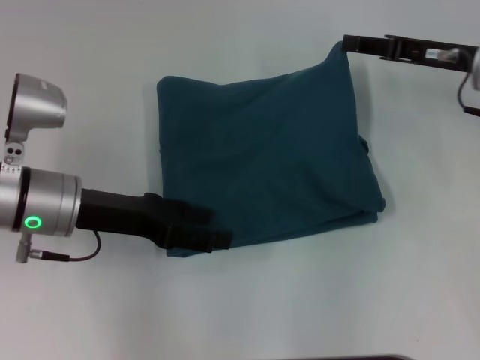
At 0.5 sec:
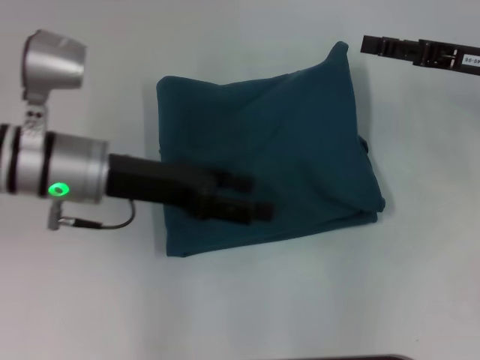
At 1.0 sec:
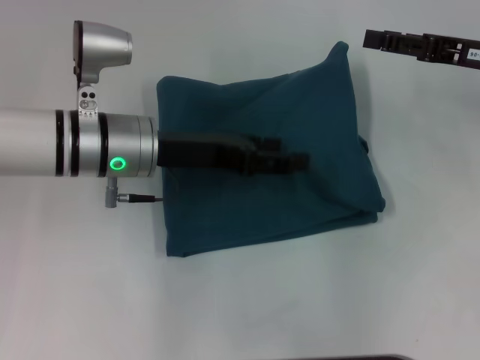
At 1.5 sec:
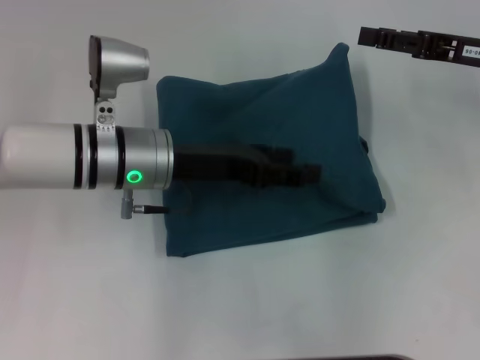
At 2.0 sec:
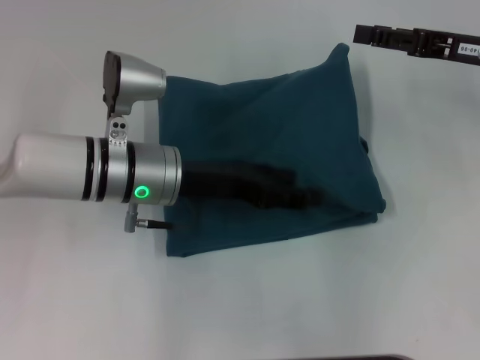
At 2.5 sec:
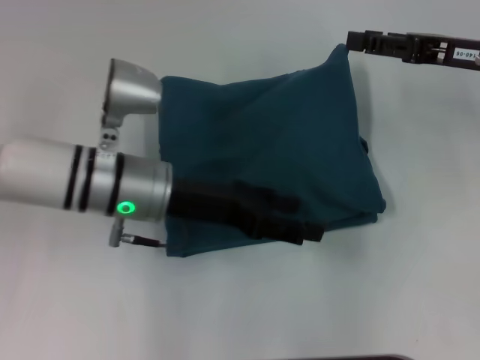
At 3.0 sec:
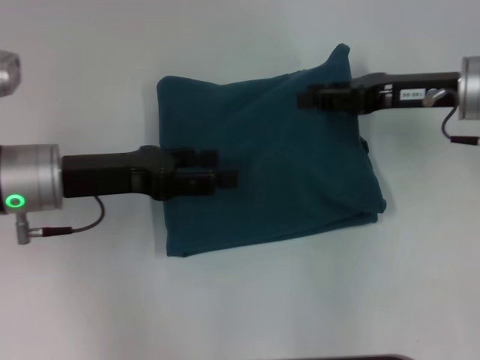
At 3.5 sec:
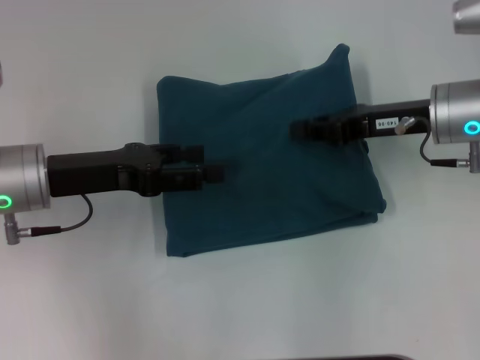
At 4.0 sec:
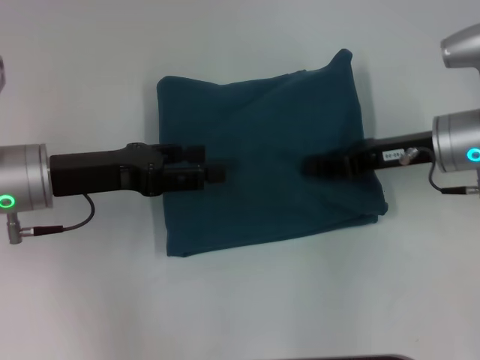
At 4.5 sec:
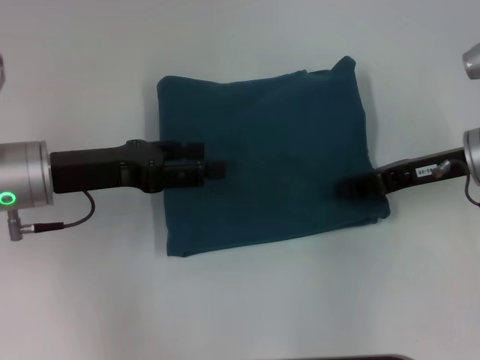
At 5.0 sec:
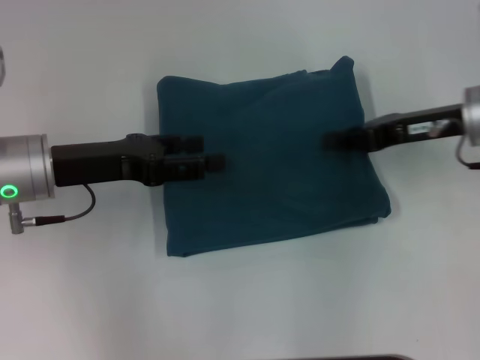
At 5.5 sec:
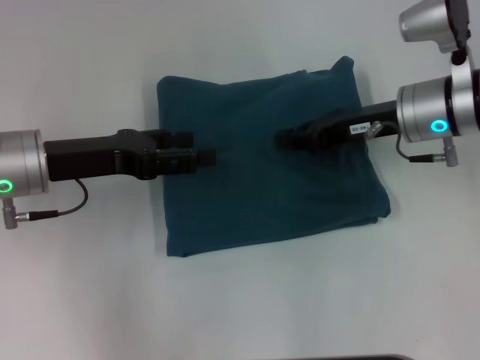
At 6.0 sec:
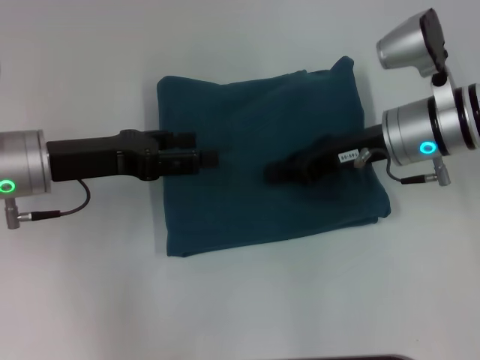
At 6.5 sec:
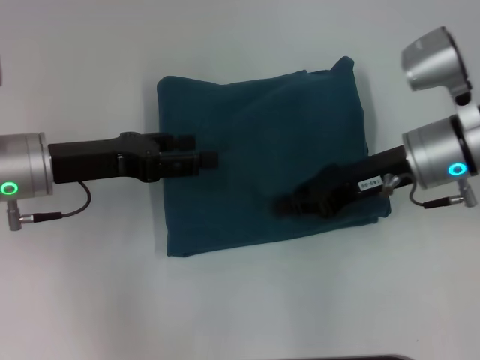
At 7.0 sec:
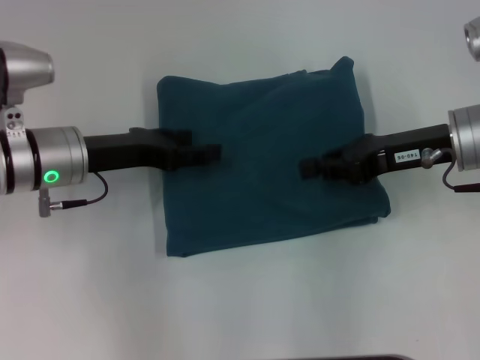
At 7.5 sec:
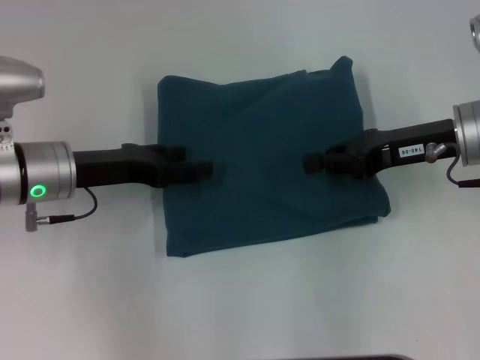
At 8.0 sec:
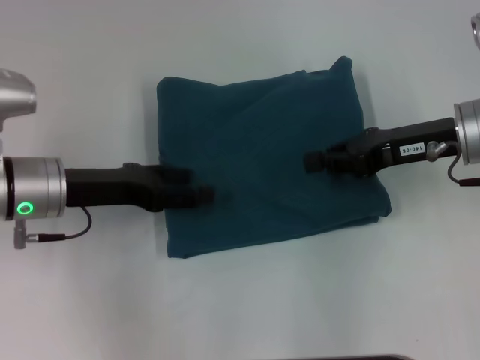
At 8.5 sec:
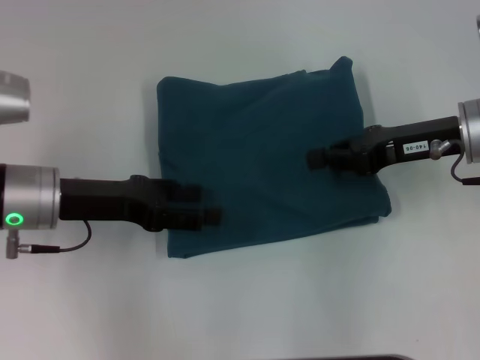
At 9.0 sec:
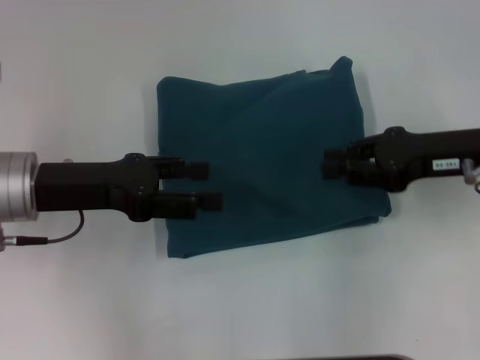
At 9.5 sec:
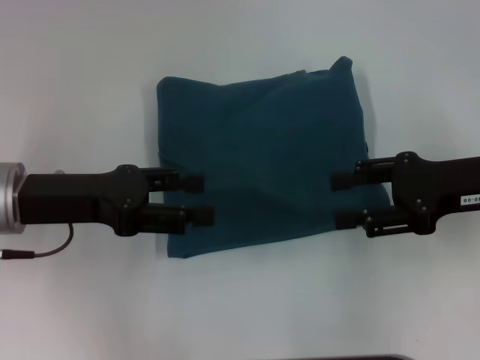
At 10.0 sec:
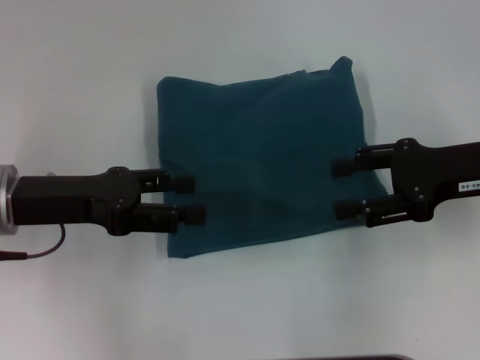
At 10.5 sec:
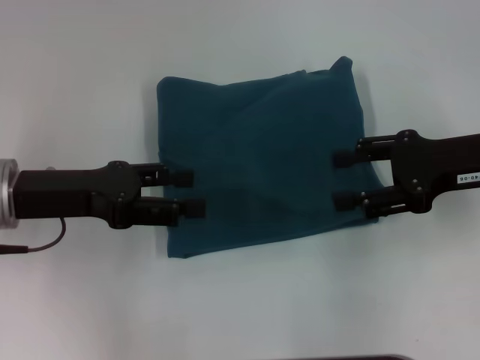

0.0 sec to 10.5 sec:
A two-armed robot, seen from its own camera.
0.0 sec to 2.0 sec: The right gripper opens its fingers; the left gripper is displaced to the right by roughly 10 cm.
2.0 sec to 4.0 sec: The left gripper shifts some 10 cm to the left. Meanwhile the right gripper heads to the left and downward, covering roughly 10 cm, and closes.
4.0 sec to 8.5 sec: The grippers stay close to where they were, moving slightly.
8.5 sec to 10.5 sec: The right gripper opens up.
